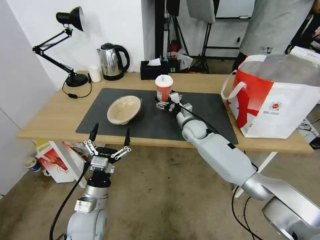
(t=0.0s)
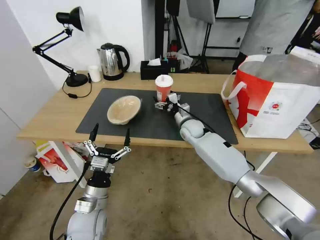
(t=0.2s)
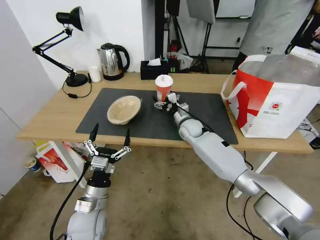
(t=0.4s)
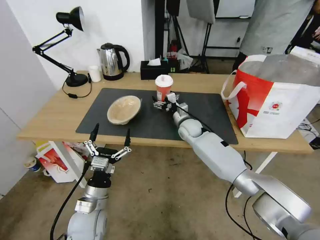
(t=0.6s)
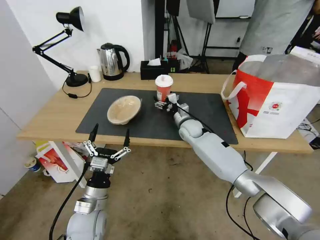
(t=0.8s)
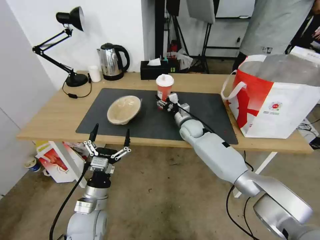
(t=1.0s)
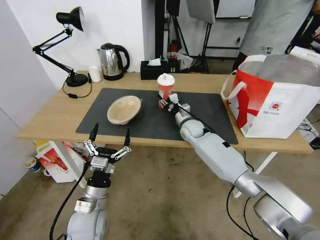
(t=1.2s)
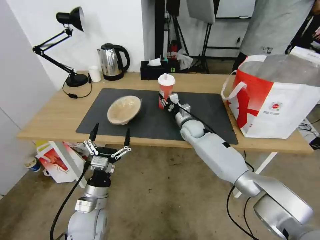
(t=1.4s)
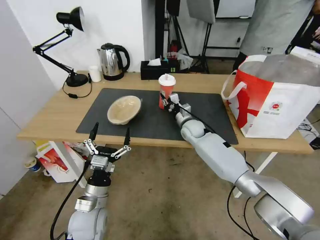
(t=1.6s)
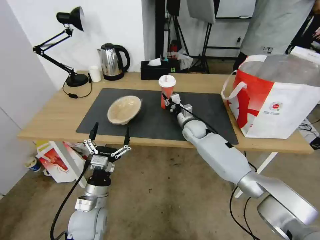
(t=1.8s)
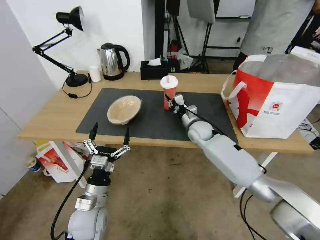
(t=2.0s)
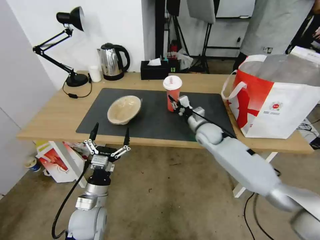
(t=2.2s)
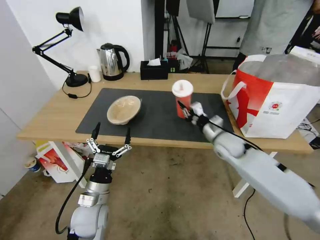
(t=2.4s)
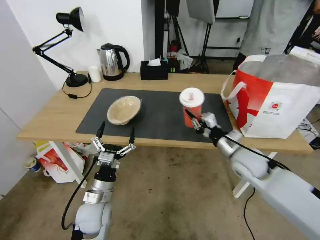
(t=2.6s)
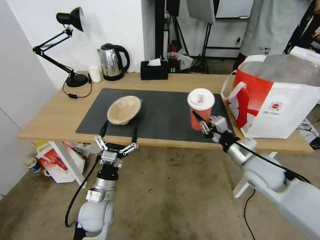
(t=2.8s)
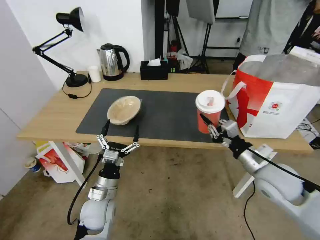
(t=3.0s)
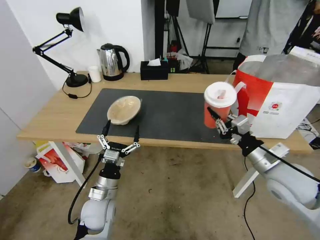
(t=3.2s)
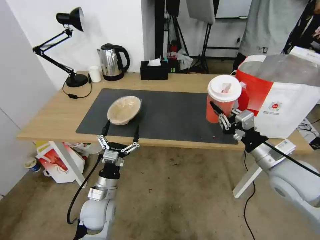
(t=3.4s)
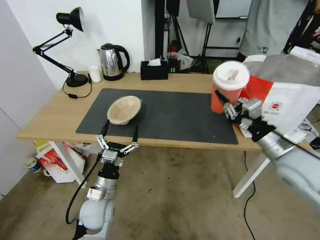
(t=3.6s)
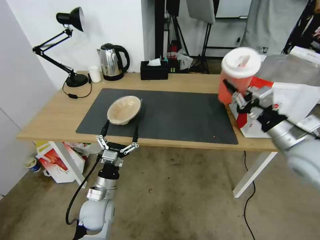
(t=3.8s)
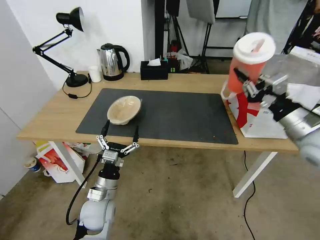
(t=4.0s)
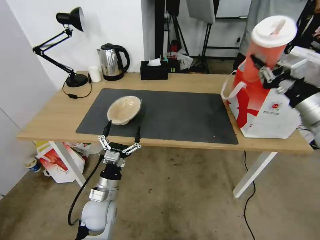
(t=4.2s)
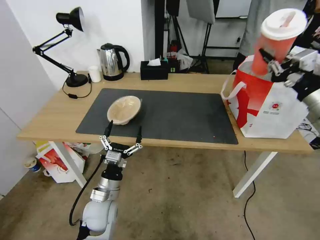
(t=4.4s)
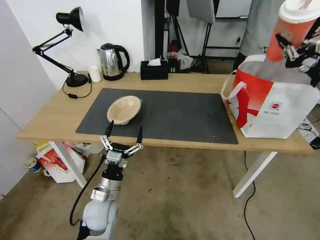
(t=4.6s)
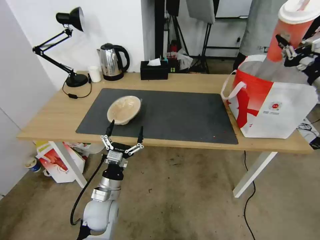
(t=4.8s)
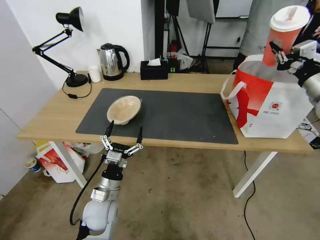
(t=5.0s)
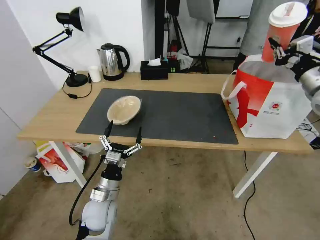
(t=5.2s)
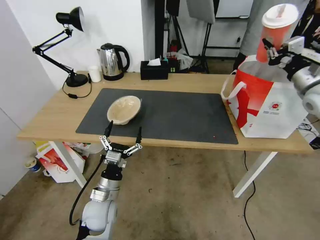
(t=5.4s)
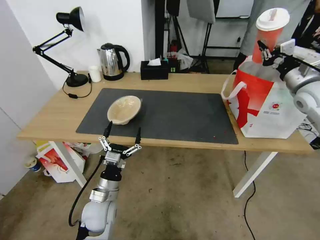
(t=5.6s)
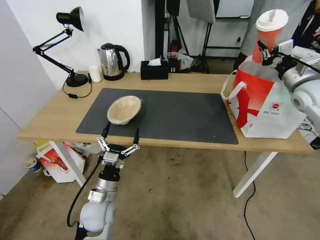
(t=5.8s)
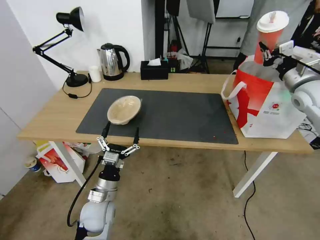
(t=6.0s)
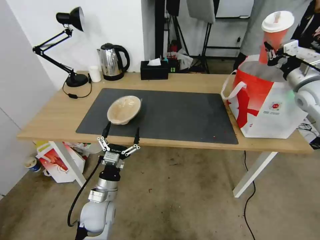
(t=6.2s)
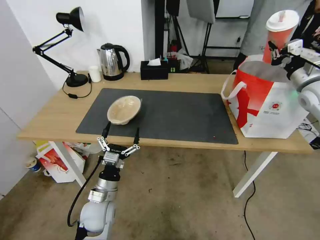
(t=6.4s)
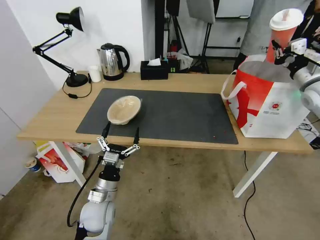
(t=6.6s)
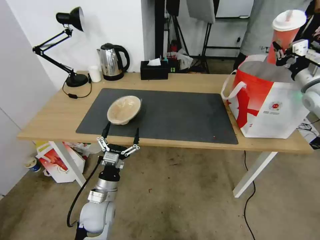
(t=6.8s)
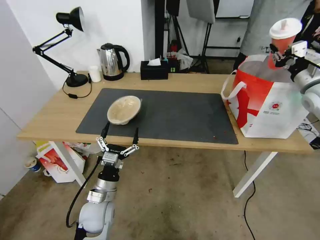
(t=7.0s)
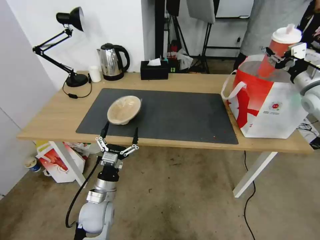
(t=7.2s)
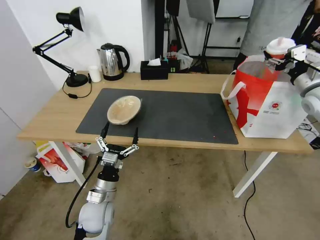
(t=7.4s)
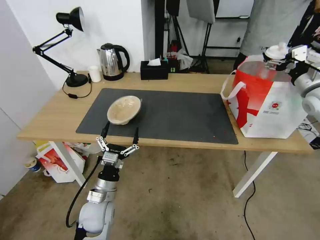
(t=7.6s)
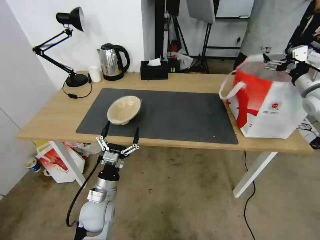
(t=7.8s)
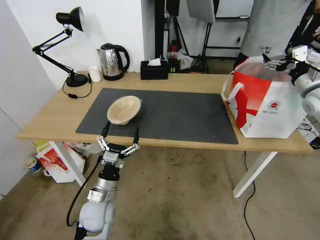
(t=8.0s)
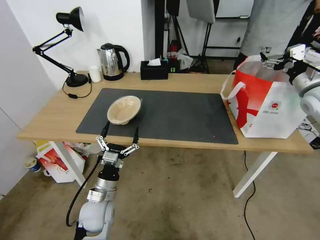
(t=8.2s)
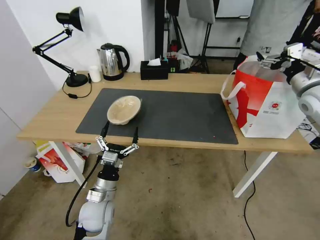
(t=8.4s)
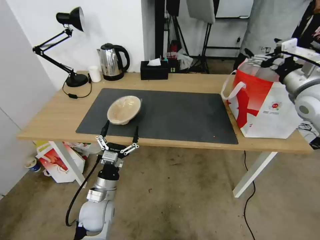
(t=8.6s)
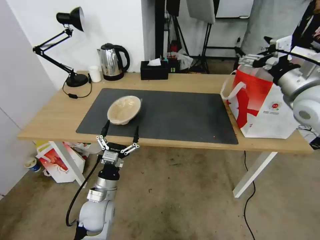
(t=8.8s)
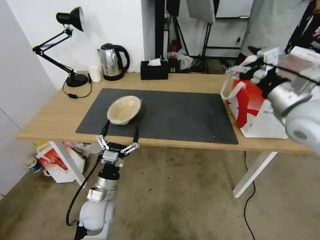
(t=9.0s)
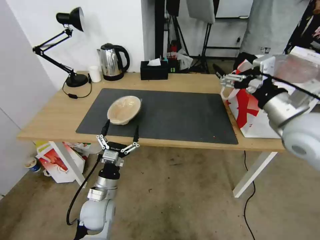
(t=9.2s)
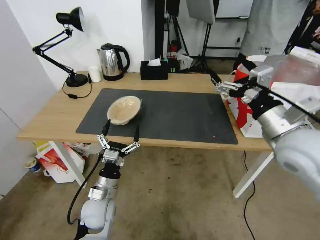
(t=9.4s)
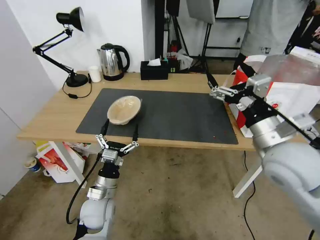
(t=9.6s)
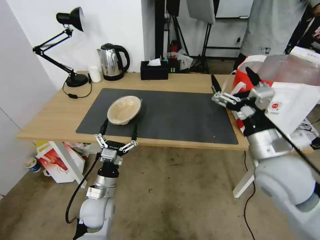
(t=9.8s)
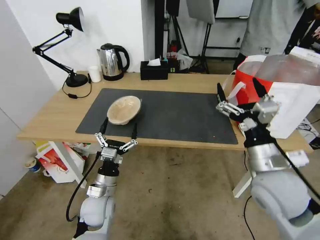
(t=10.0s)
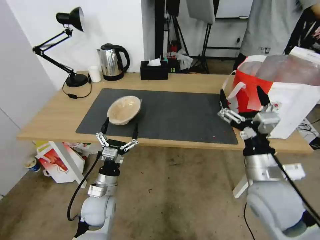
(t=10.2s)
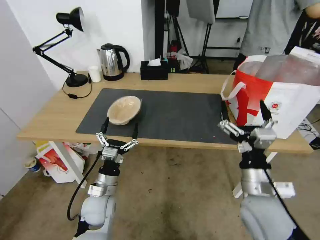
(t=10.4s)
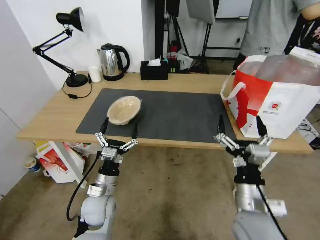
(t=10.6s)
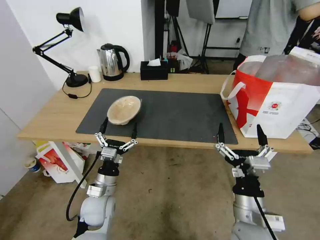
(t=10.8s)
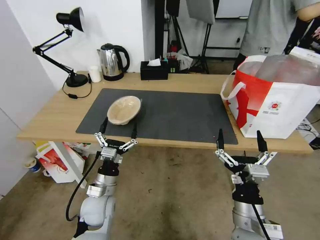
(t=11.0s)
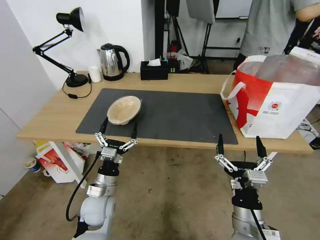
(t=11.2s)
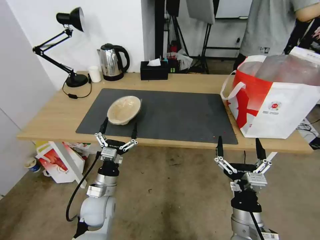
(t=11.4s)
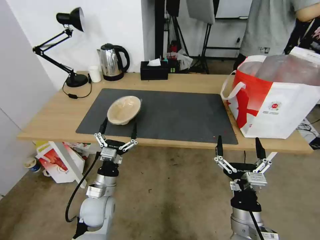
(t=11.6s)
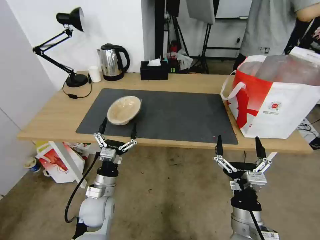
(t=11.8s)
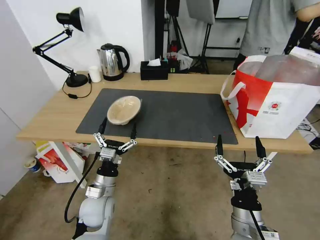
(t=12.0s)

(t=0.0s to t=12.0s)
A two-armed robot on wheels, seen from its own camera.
Task of the whole recording: Pick up the trash from the table and place it into the takeout bag.
t=0.0s - t=1.6s: The right gripper closes.
t=1.6s - t=3.0s: The right gripper moves backward and to the right, about 30 cm.
t=3.0s - t=4.4s: The right gripper goes approximately 20 cm upward and to the right.
t=4.4s - t=6.0s: The right gripper heads forward, covering roughly 15 cm.
t=6.0s - t=7.6s: The right gripper opens up.
t=7.6s - t=9.0s: The right gripper moves to the left and backward, about 20 cm.
t=9.0s - t=10.4s: The right gripper is displaced downward, backward and to the left by roughly 25 cm.
t=10.4s - t=12.0s: The right gripper is displaced downward and backward by about 10 cm.

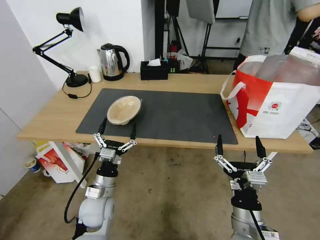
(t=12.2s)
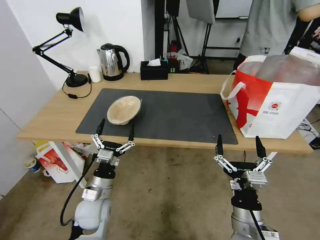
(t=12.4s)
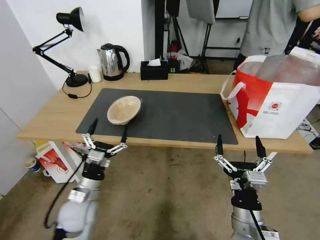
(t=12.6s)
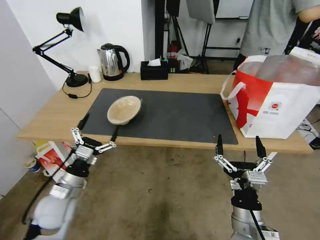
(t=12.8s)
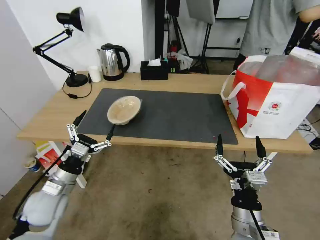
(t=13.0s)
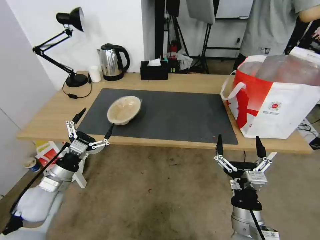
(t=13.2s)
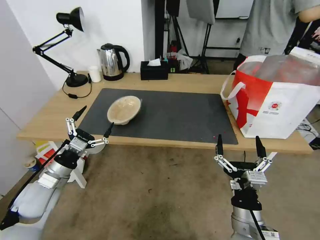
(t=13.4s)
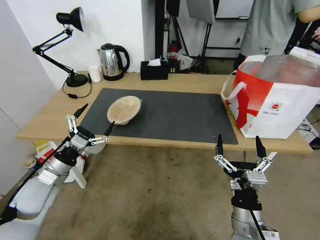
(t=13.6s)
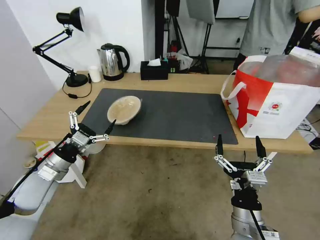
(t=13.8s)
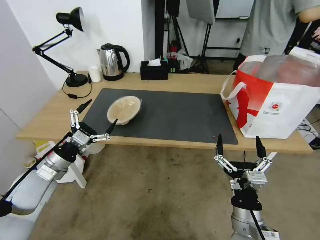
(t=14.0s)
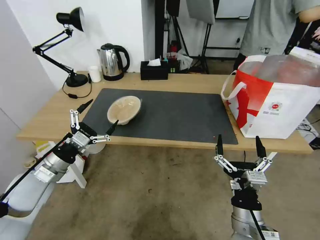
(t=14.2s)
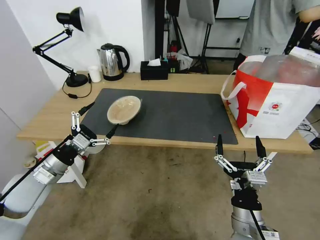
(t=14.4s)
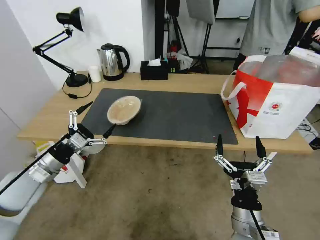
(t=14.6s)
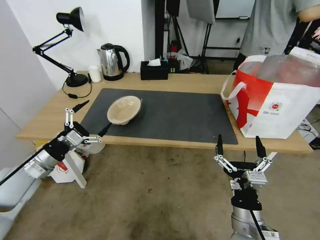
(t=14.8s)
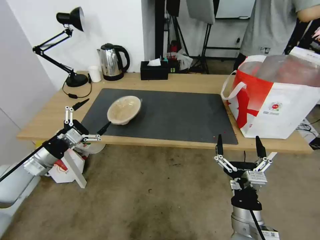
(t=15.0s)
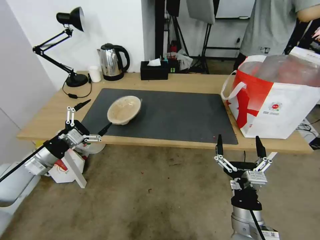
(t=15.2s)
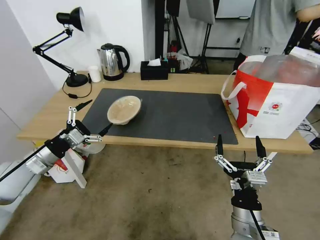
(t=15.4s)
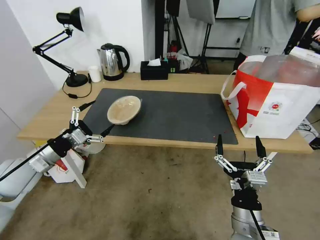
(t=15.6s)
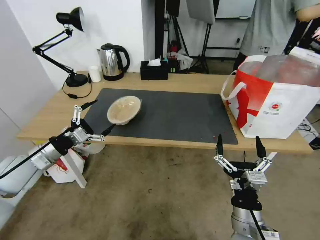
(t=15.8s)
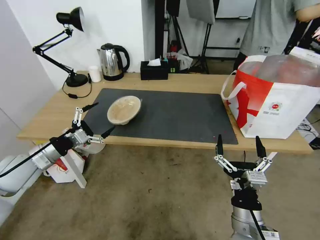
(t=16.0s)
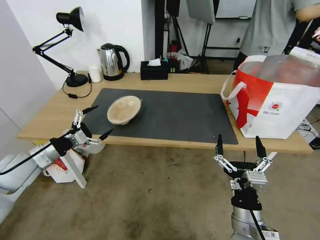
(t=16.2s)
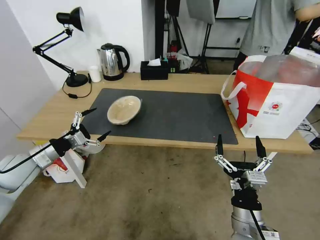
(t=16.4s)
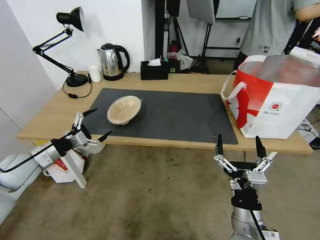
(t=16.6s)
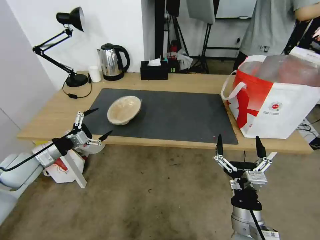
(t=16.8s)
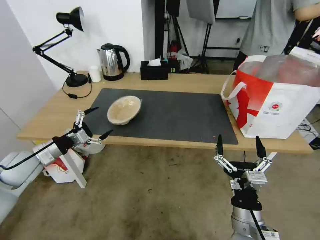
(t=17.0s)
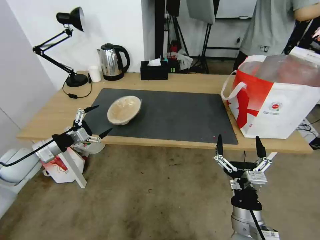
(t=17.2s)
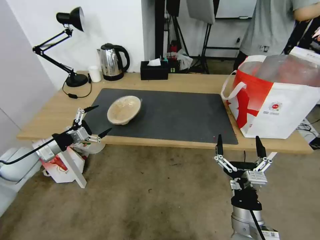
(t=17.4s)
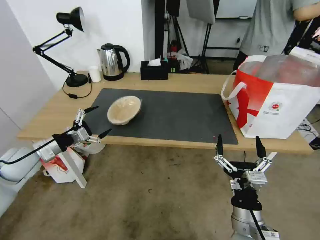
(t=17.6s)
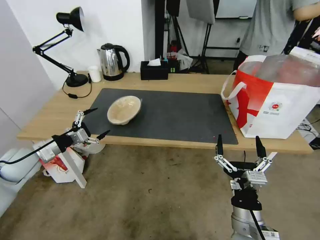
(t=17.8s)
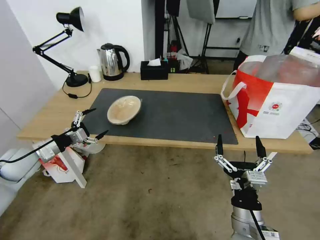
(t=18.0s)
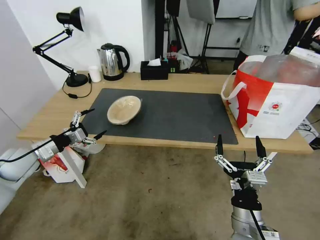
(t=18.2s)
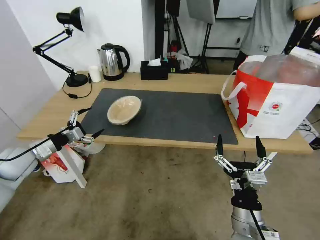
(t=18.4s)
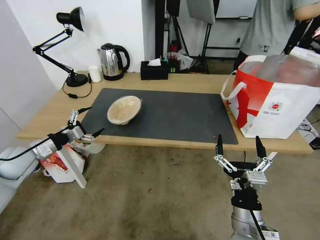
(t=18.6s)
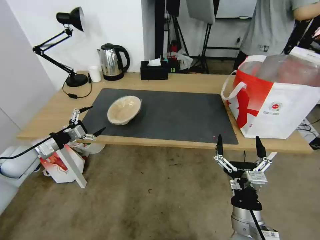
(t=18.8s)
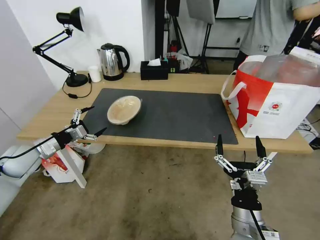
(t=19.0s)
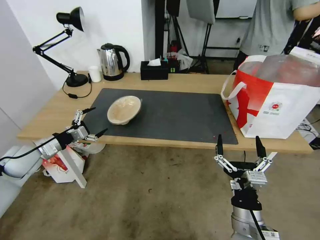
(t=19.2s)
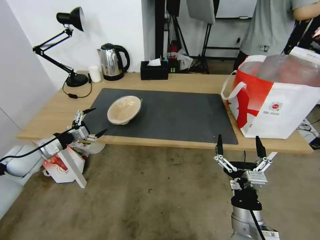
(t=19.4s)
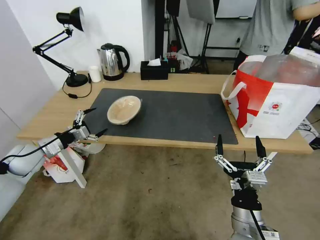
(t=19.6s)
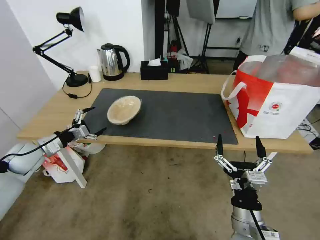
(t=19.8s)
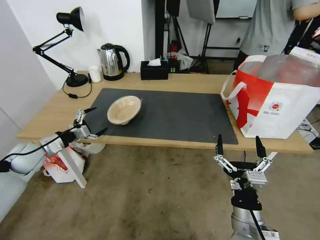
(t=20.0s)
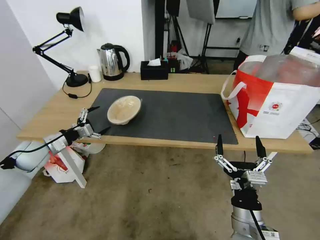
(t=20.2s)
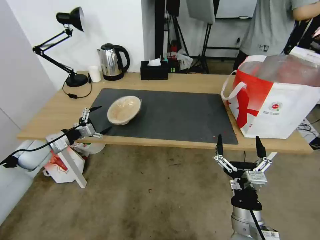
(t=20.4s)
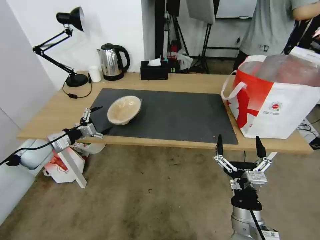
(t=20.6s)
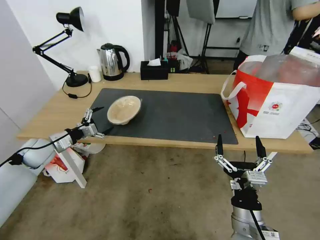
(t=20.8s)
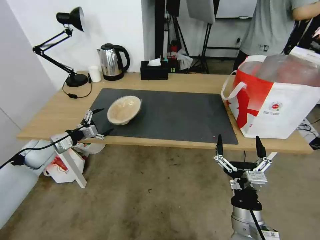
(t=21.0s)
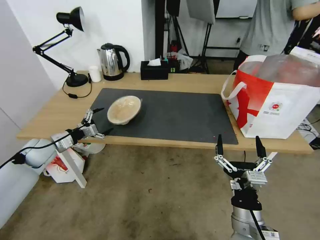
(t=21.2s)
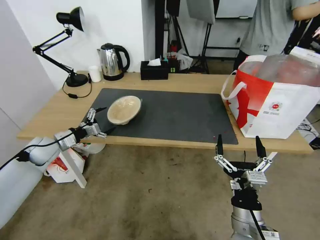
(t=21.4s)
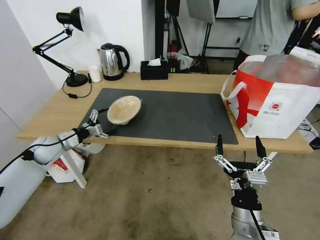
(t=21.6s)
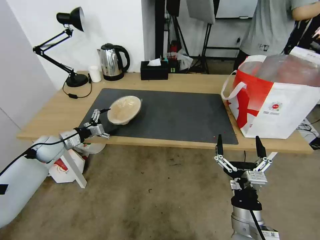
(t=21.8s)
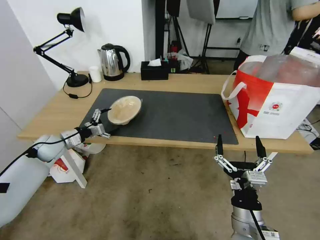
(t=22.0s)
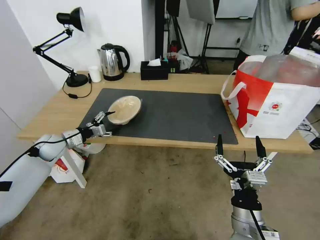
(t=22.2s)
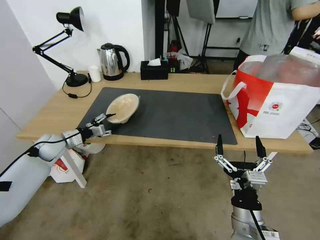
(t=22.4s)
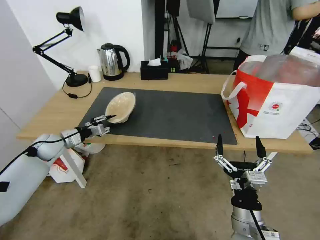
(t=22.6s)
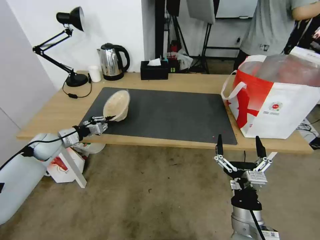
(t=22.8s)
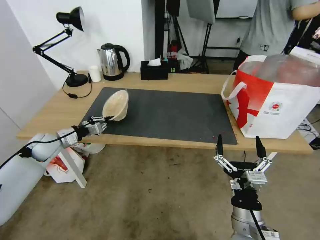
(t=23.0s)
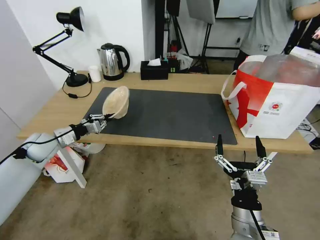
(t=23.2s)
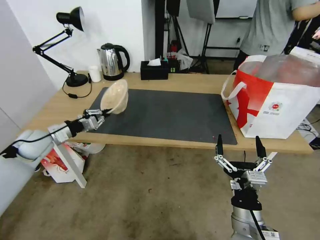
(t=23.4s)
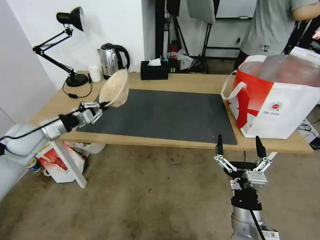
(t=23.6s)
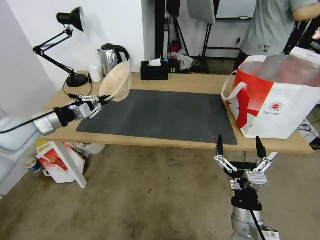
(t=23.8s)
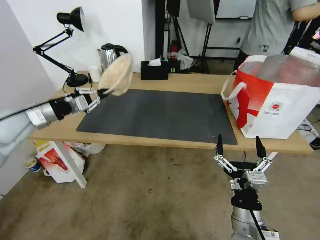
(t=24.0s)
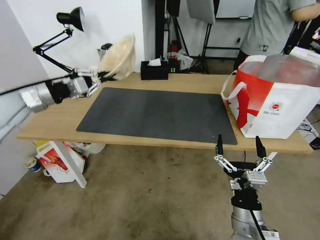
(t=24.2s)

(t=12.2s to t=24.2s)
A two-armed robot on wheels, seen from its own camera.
Task of the whole recording: Pick up the trash from the table and place it into the takeout bag.
t=12.2s - t=13.8s: The left gripper is displaced to the left and upward by approximately 20 cm.
t=13.8s - t=15.2s: The left gripper shifts by roughly 5 cm.
t=15.2s - t=16.6s: The left gripper shifts by roughly 5 cm.
t=16.6s - t=19.8s: There are only small adjustments of the grippers.
t=19.8s - t=21.2s: The grippers make only small movements.
t=21.2s - t=22.6s: The left gripper closes its fingers.
t=22.6s - t=24.2s: The left gripper moves upward, approximately 25 cm.
